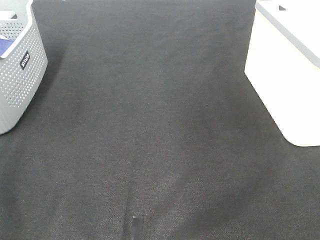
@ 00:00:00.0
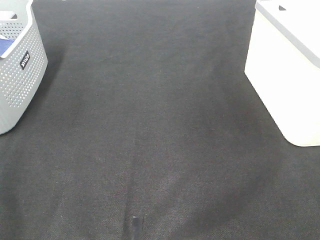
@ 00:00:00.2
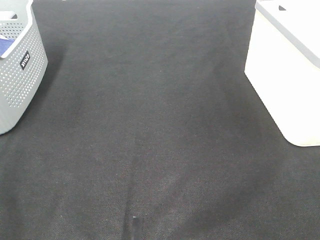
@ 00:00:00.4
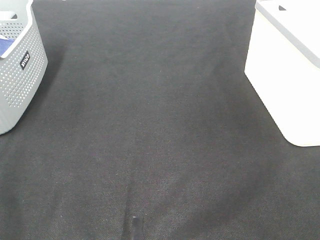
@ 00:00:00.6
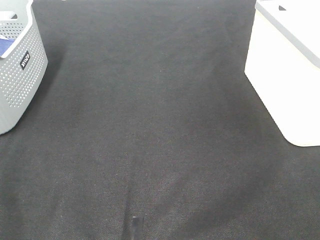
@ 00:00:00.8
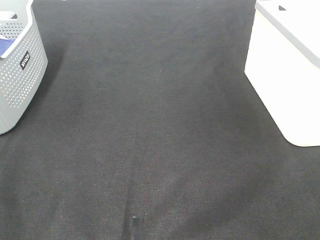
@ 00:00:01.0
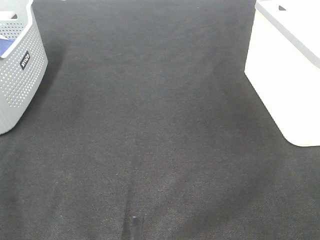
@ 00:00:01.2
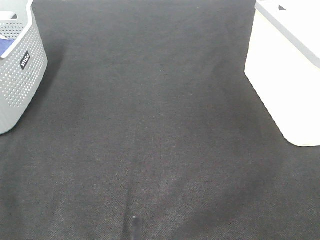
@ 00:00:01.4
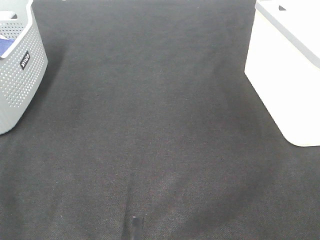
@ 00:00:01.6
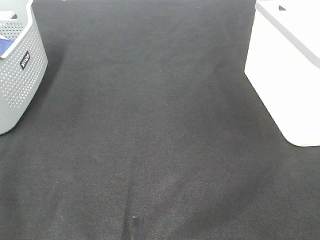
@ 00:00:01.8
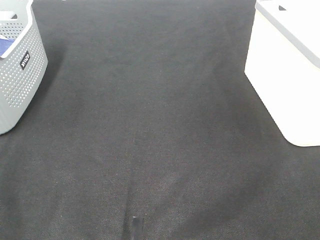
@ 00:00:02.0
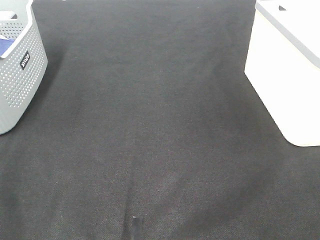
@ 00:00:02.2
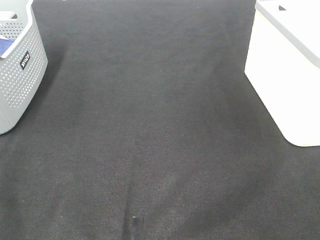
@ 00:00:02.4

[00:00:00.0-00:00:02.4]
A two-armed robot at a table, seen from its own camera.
00:00:01.2 to 00:00:02.4: Neither gripper changes place.

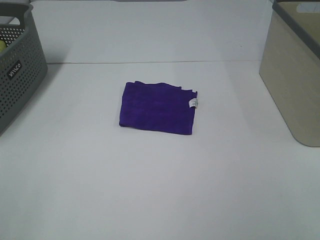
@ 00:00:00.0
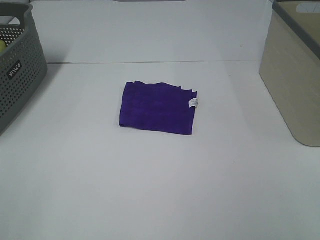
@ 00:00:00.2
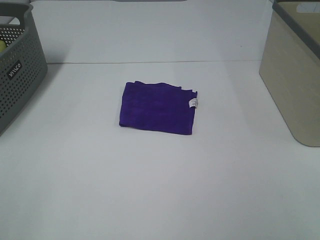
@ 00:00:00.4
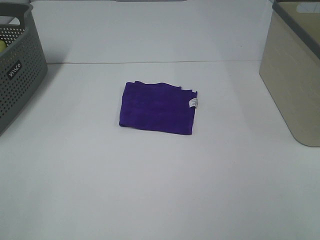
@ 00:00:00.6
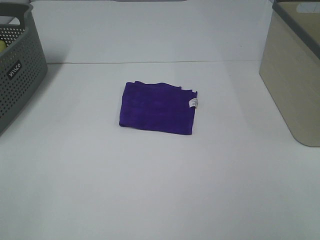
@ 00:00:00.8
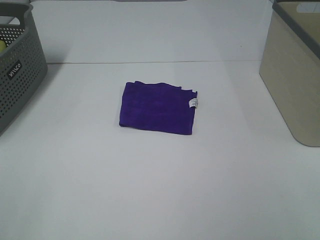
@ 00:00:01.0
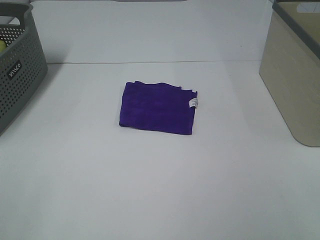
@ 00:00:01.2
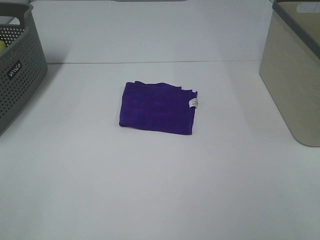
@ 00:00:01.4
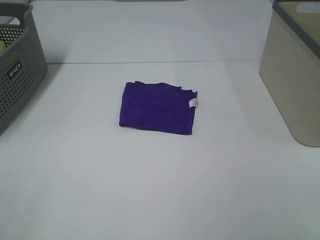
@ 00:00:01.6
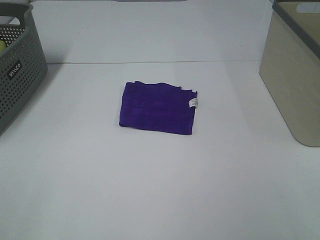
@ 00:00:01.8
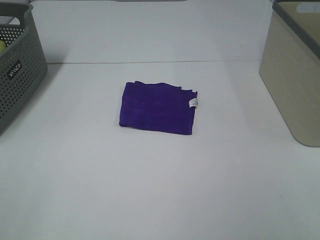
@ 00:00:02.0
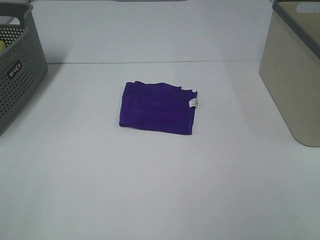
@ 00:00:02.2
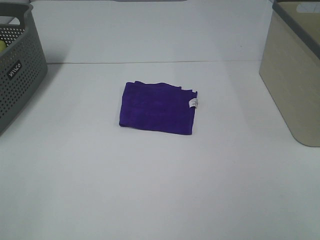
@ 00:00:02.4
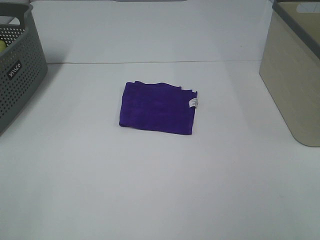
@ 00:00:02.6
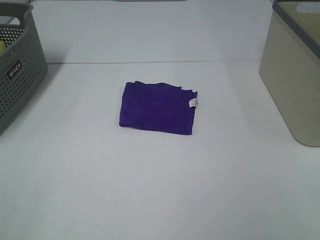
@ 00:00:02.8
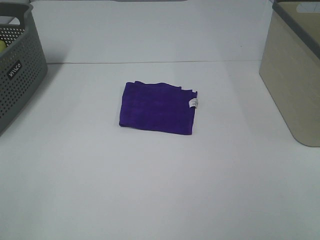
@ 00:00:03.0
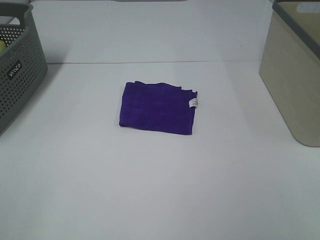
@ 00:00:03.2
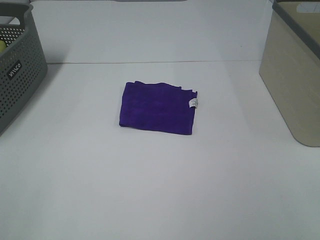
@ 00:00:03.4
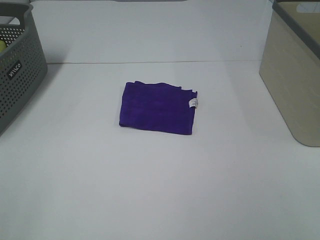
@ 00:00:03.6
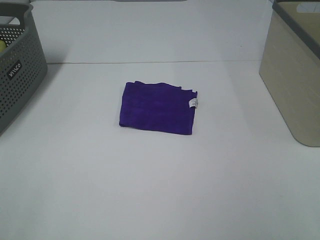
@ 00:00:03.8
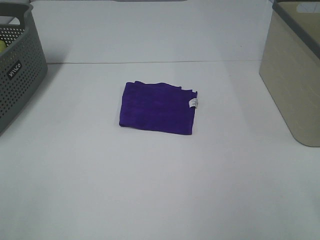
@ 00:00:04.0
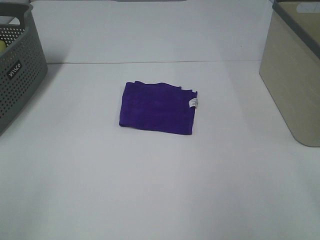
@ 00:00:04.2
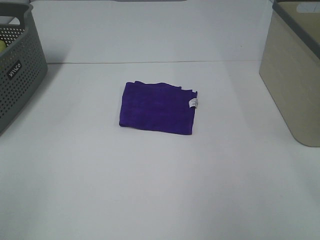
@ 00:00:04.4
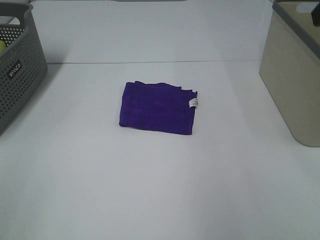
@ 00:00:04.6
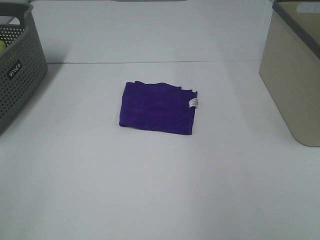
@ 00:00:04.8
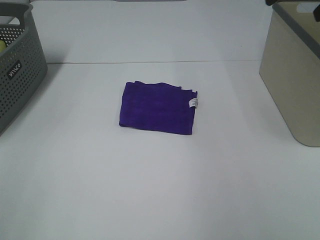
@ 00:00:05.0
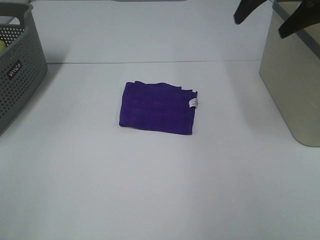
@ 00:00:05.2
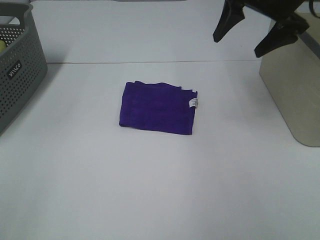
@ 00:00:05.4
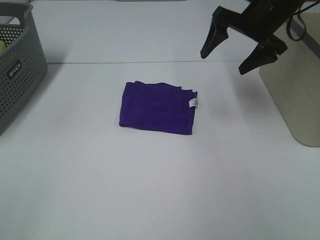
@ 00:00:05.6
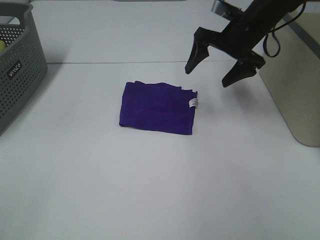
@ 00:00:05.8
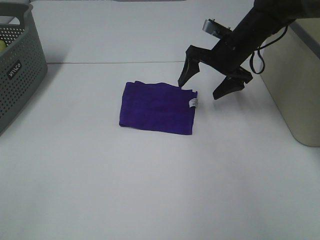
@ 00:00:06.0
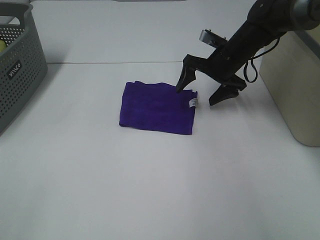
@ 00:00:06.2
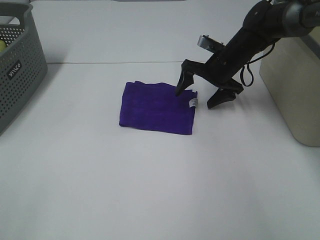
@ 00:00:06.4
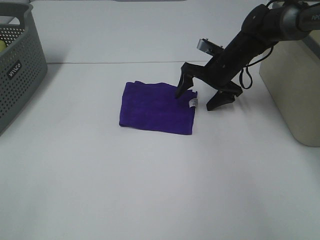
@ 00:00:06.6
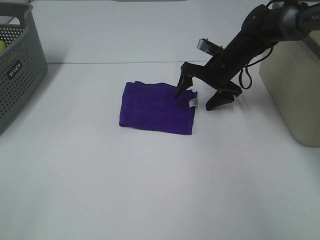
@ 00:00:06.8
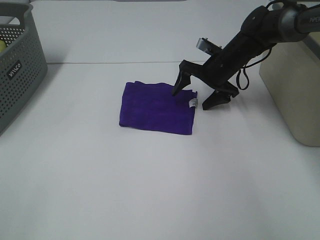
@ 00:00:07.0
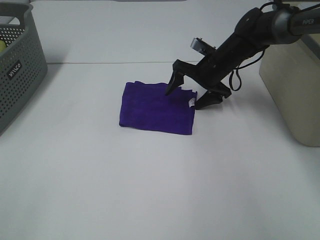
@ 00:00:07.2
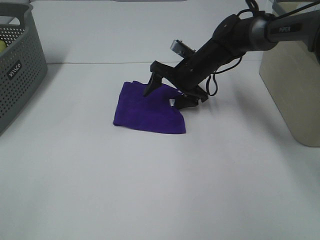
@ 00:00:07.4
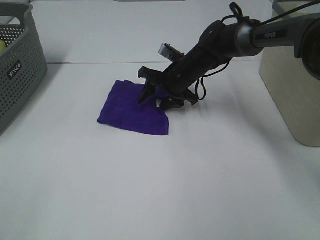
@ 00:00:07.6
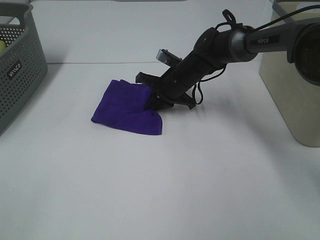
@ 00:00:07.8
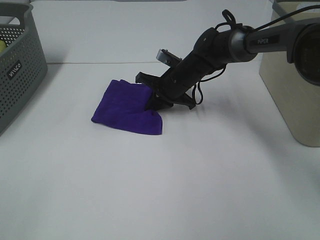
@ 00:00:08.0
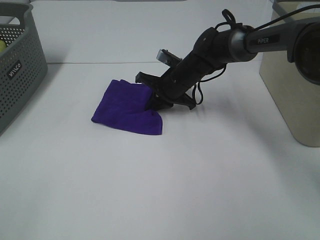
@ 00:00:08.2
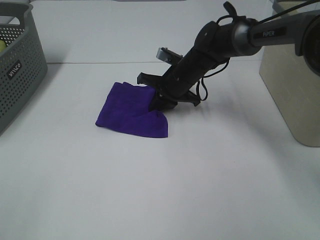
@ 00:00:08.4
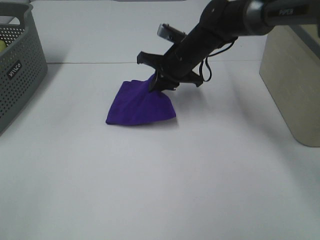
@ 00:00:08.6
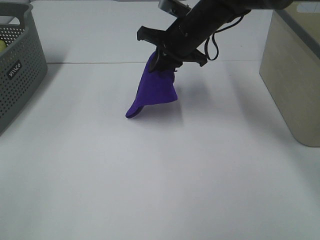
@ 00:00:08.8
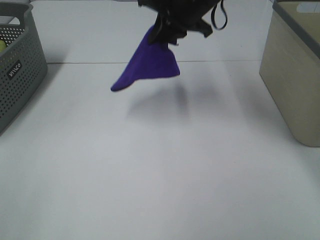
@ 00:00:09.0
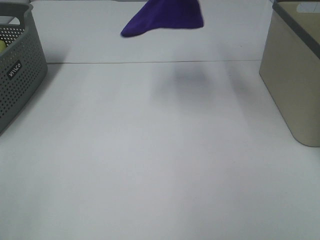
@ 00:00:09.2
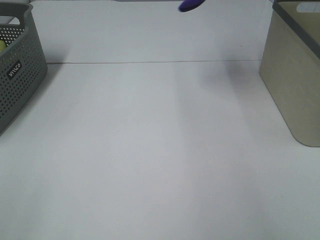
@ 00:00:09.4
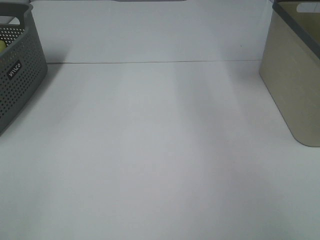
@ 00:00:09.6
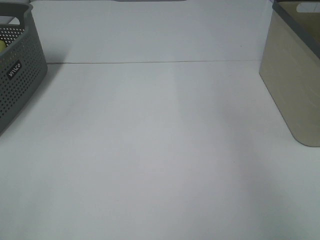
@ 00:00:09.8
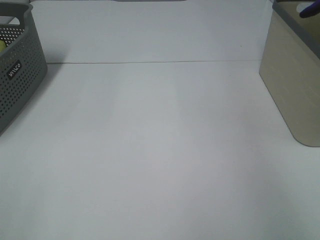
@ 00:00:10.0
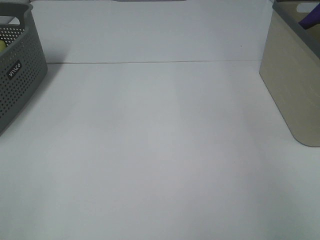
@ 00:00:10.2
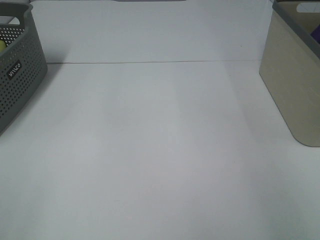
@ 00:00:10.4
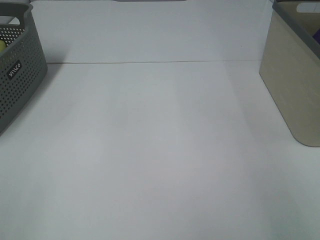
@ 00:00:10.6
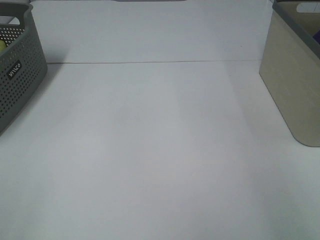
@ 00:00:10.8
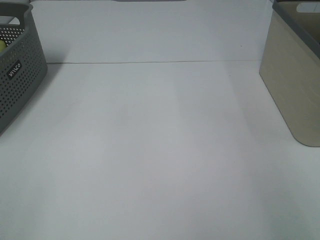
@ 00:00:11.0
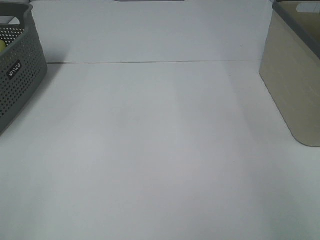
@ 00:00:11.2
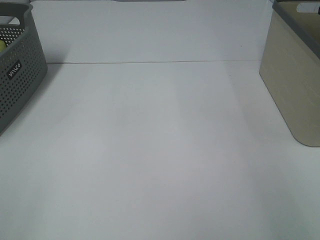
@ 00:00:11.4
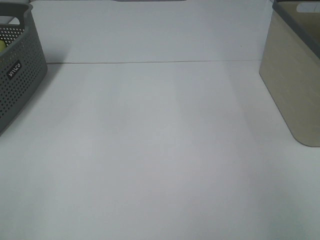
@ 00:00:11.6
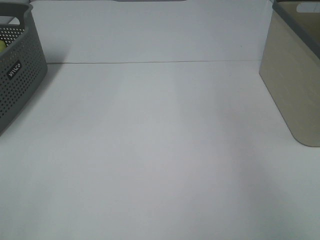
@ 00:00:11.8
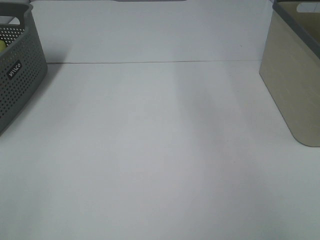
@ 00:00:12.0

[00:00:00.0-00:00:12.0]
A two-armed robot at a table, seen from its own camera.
Step, 00:00:00.0 to 00:00:07.8: Right hand: grab the folded purple towel.
Step, 00:00:08.0 to 00:00:11.4: Right hand: place the purple towel in right basket.
00:00:00.0 to 00:00:03.0: Both grippers stay about where they are.
00:00:04.4 to 00:00:06.0: The right gripper goes about 35 cm forward, downward and to the left.
00:00:06.0 to 00:00:07.6: The right gripper goes about 10 cm to the left and downward, and closes its fingers.
00:00:07.6 to 00:00:09.0: The right gripper moves upward, roughly 20 cm, and closes.
00:00:09.0 to 00:00:10.4: The right gripper travels to the right by approximately 35 cm.

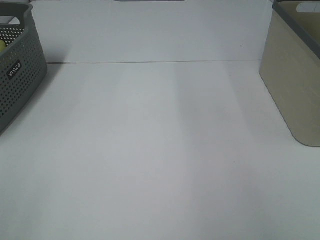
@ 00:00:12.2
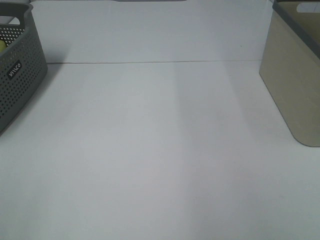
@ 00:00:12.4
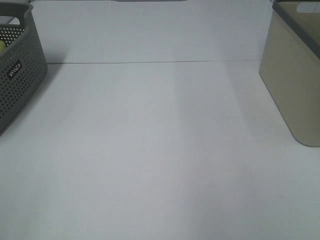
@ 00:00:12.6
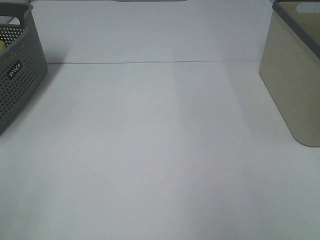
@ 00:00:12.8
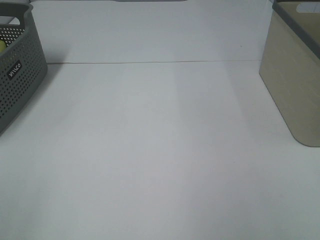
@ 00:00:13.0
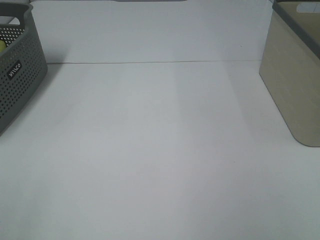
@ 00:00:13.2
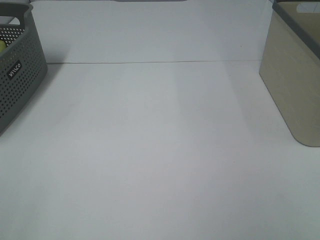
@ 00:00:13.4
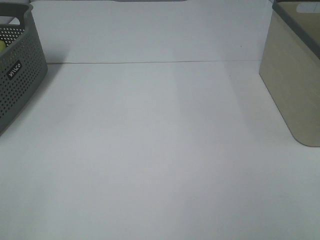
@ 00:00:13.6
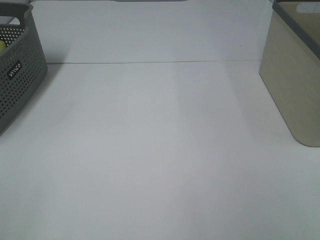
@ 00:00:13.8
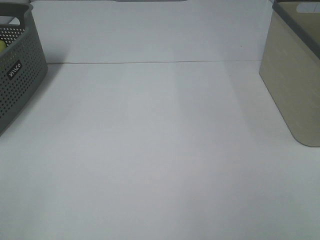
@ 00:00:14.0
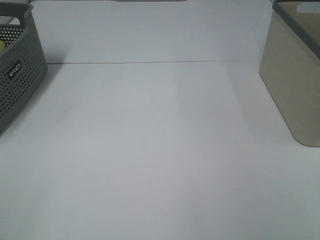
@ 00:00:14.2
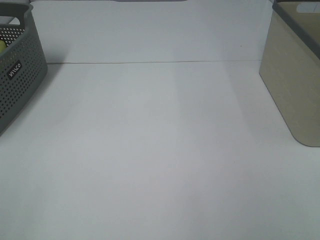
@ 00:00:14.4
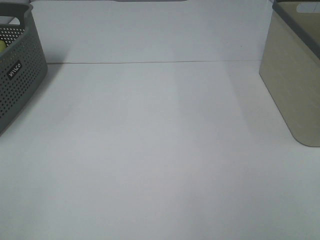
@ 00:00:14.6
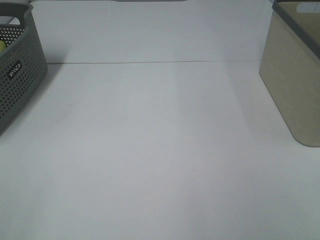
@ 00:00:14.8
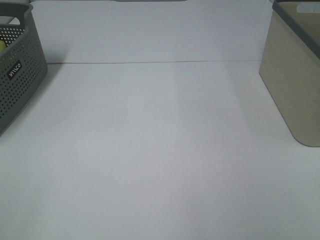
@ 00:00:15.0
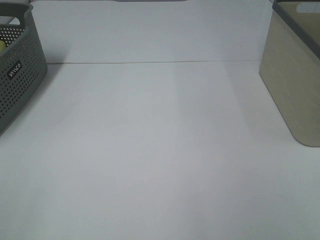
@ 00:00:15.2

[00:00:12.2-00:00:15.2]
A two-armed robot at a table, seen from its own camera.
00:00:13.8 to 00:00:15.2: Neither gripper changes place.
